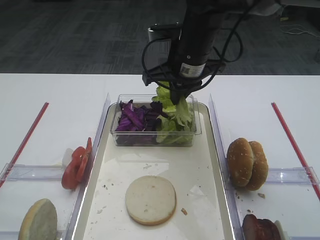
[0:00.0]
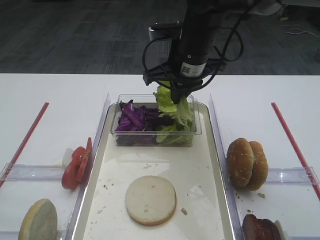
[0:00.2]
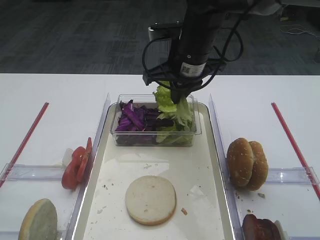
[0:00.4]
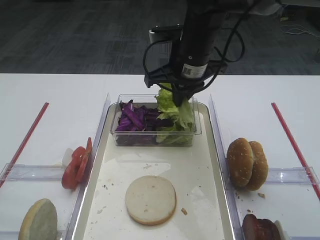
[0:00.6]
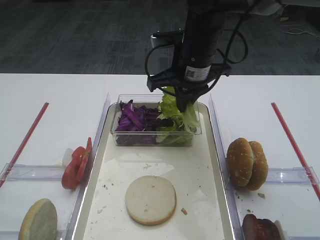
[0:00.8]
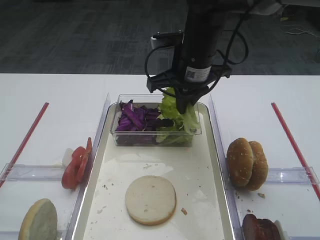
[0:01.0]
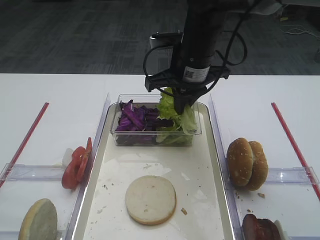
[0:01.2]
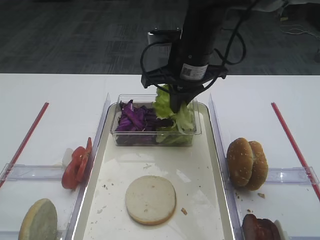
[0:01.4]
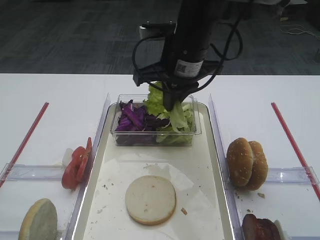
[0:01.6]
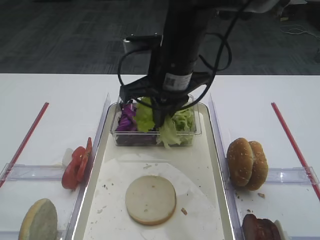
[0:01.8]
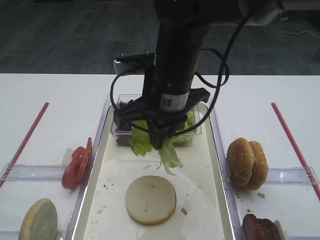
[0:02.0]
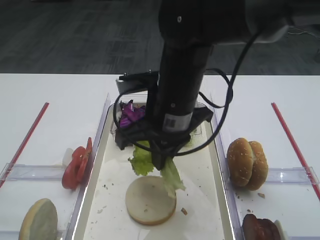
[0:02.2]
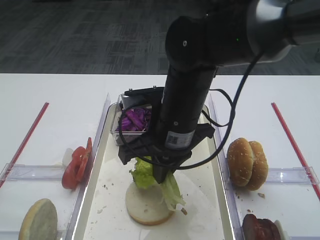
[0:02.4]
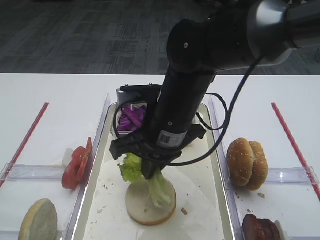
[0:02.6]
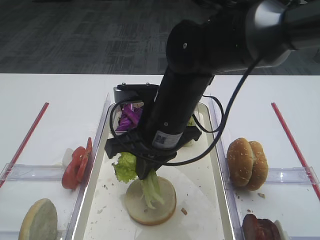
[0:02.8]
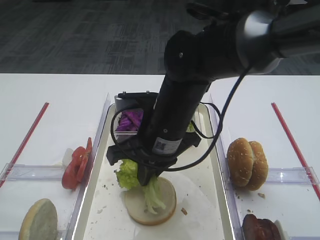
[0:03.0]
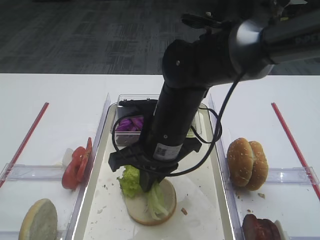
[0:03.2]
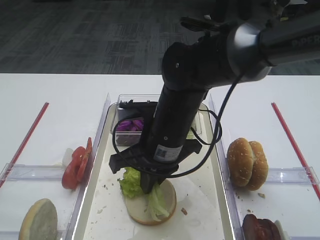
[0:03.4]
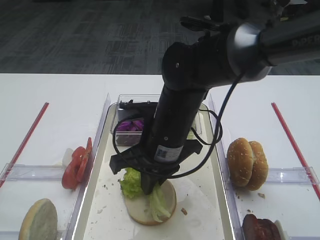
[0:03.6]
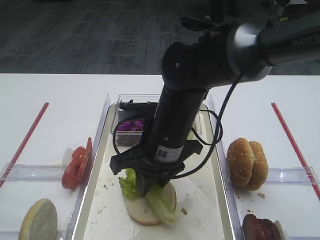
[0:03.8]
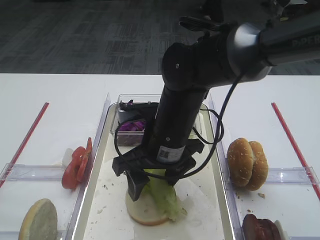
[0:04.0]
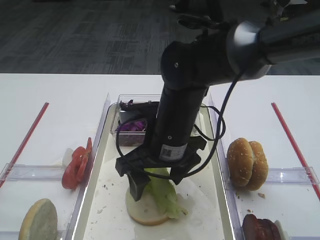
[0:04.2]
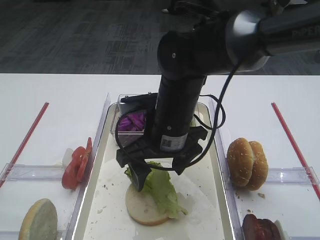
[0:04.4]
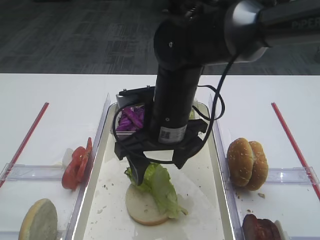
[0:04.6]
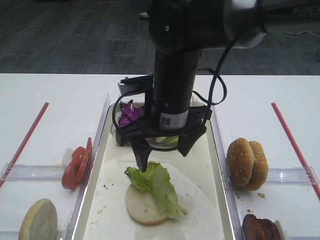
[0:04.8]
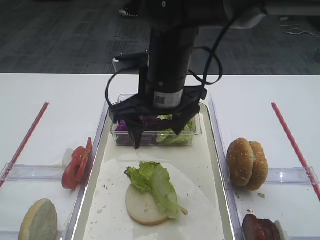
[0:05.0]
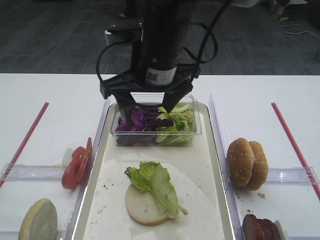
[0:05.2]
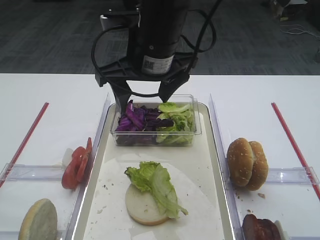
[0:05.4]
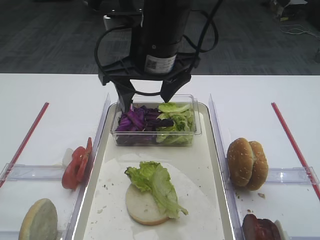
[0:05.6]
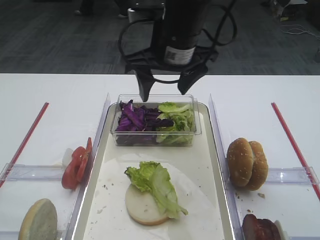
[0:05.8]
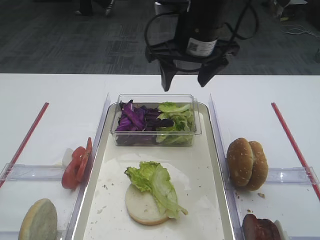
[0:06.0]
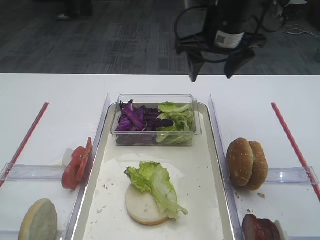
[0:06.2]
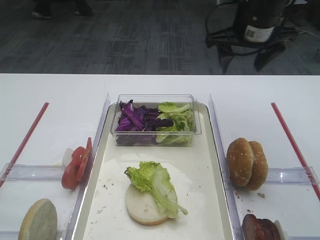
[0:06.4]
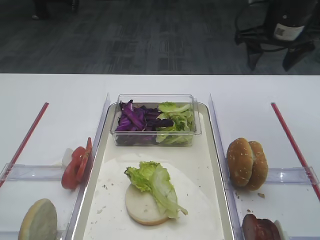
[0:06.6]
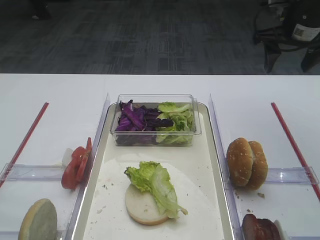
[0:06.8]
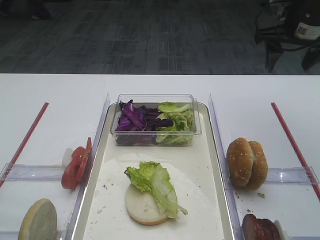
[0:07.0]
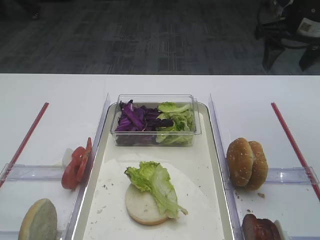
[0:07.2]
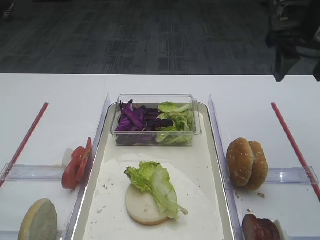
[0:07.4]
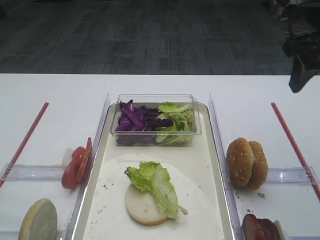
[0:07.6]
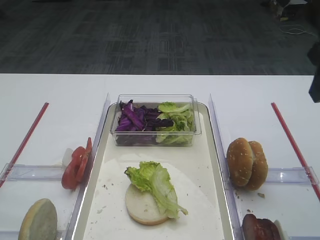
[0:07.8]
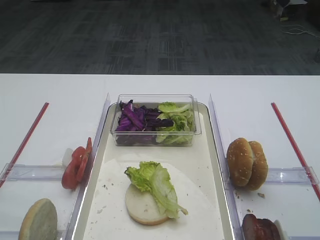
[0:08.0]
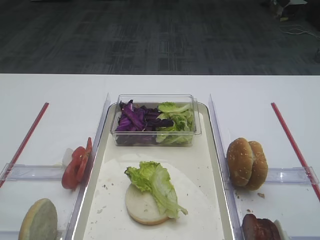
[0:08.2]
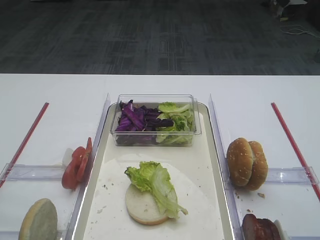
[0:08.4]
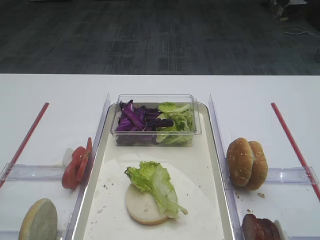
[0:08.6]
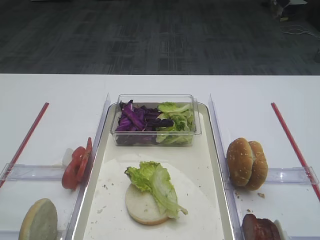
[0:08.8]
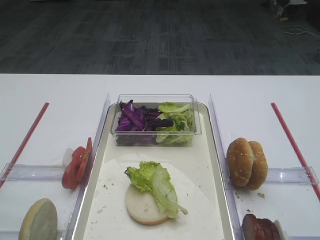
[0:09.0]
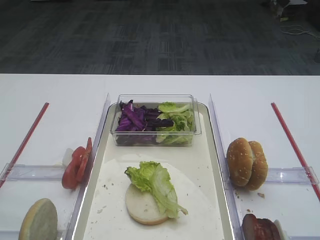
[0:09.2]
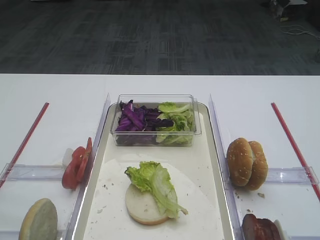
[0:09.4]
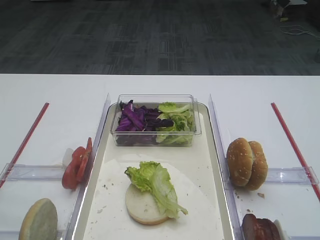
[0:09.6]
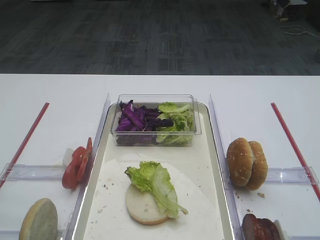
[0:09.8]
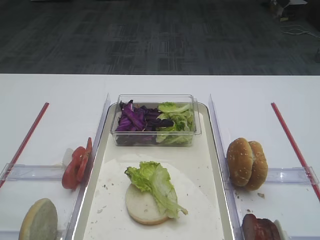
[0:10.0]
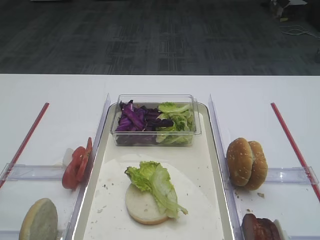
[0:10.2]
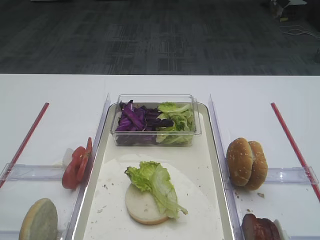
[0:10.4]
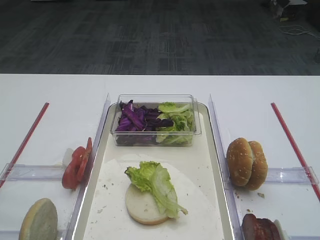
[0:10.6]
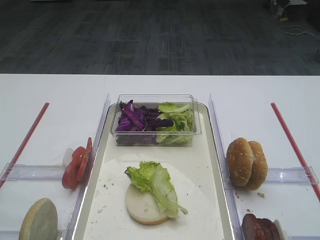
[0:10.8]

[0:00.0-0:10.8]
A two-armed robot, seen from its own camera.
Step, 0:01.6 to 0:05.4: Place the lettuce leaf on the bread slice with the right gripper.
0:00.0 to 0:01.6: The grippers stay close to where they were, moving slightly.
0:01.6 to 0:03.0: The right gripper heads backward and downward, covering about 10 cm.
0:03.0 to 0:04.6: The right gripper opens its fingers.
0:04.6 to 0:06.2: The right gripper goes about 15 cm forward, upward and to the right.
0:06.2 to 0:07.8: The right gripper is displaced to the right and backward by some 20 cm.
0:07.8 to 0:09.2: The right gripper shifts approximately 25 cm backward.

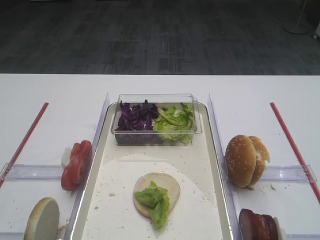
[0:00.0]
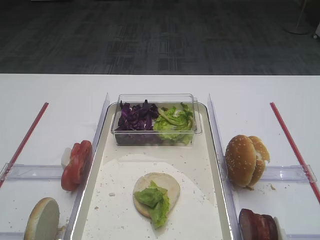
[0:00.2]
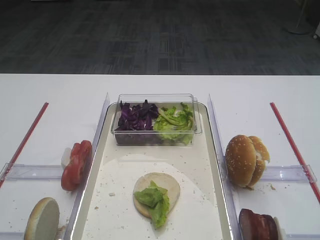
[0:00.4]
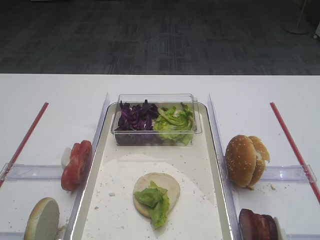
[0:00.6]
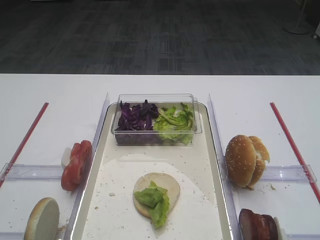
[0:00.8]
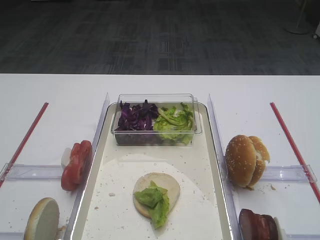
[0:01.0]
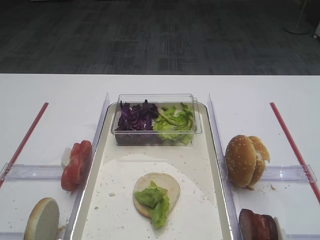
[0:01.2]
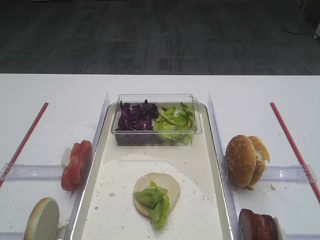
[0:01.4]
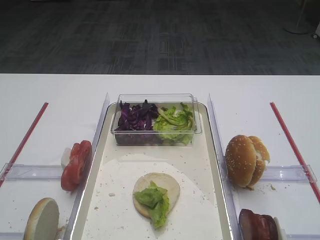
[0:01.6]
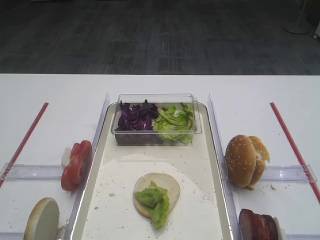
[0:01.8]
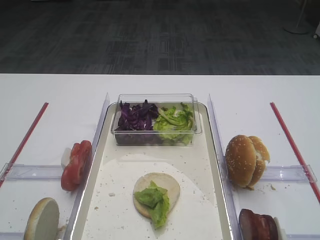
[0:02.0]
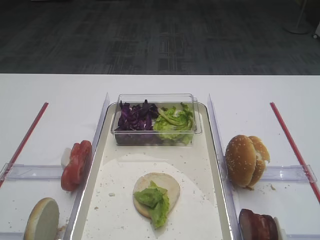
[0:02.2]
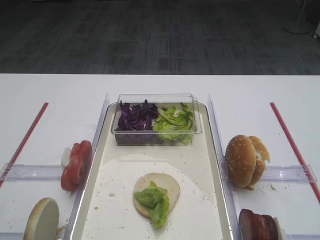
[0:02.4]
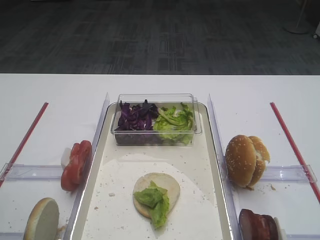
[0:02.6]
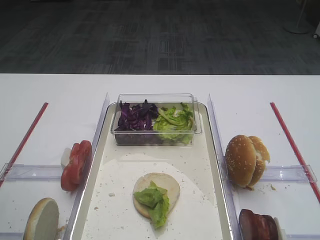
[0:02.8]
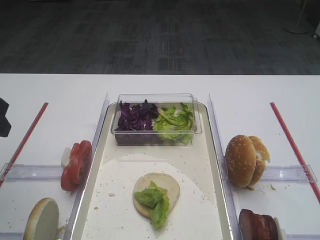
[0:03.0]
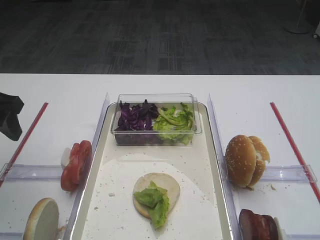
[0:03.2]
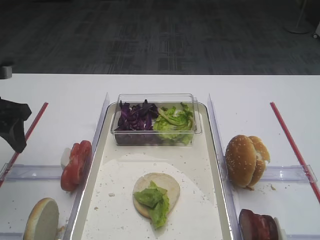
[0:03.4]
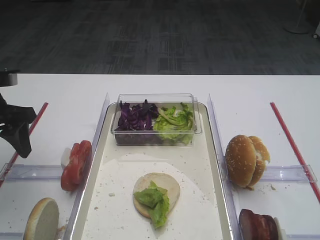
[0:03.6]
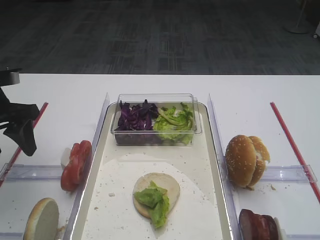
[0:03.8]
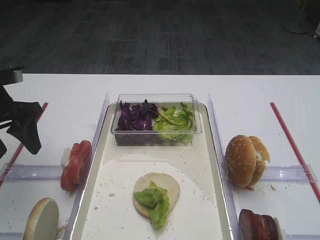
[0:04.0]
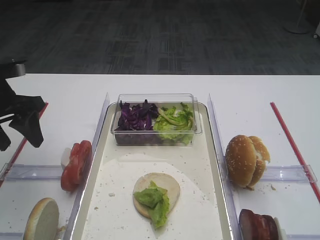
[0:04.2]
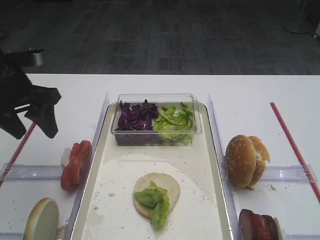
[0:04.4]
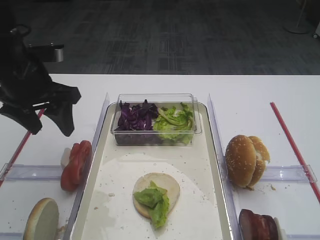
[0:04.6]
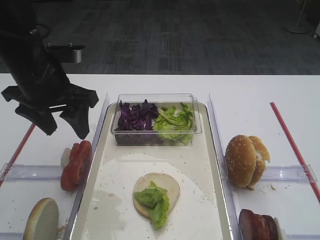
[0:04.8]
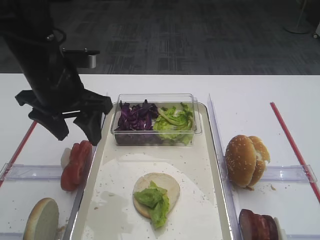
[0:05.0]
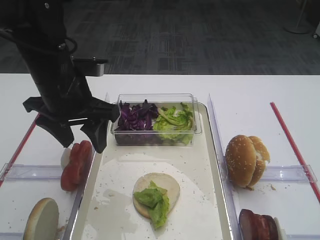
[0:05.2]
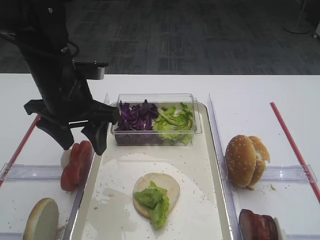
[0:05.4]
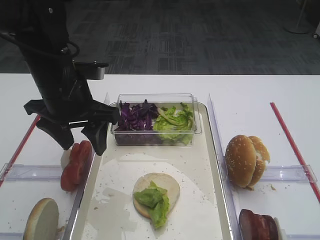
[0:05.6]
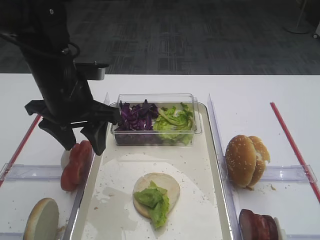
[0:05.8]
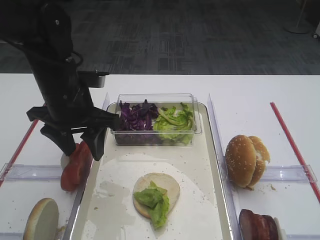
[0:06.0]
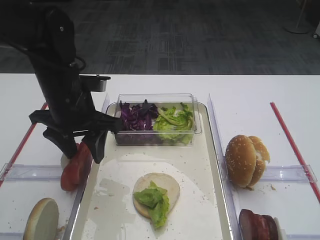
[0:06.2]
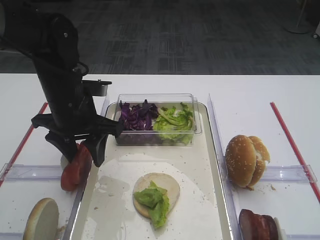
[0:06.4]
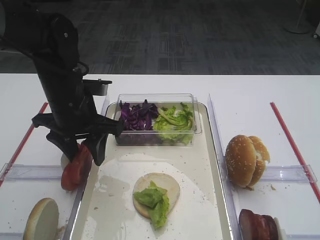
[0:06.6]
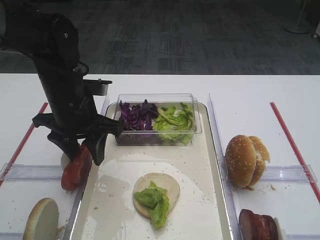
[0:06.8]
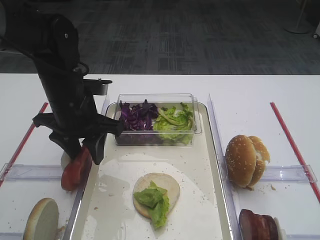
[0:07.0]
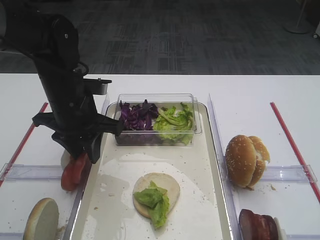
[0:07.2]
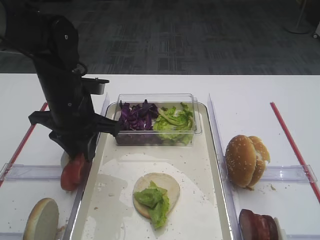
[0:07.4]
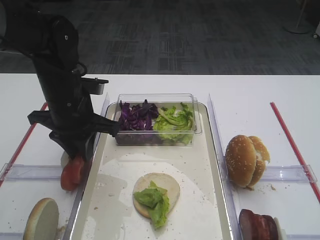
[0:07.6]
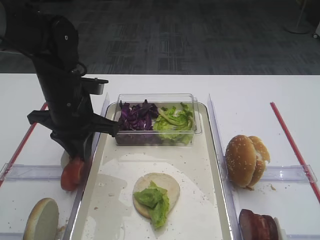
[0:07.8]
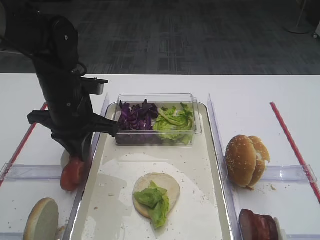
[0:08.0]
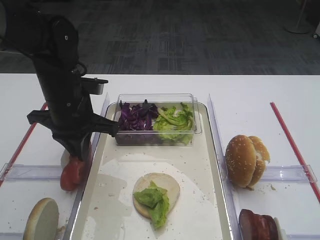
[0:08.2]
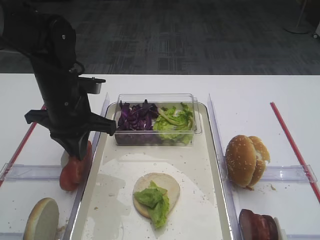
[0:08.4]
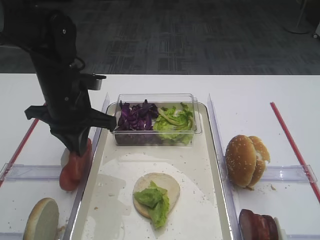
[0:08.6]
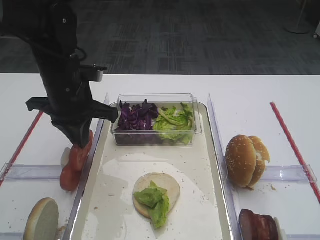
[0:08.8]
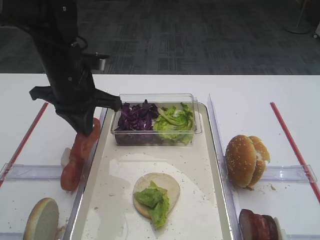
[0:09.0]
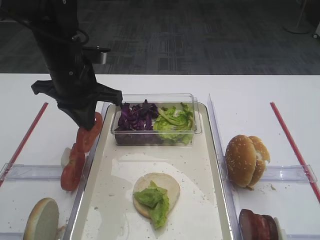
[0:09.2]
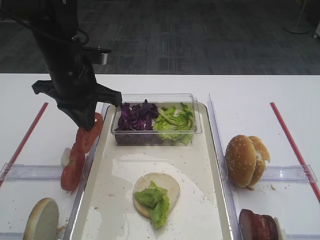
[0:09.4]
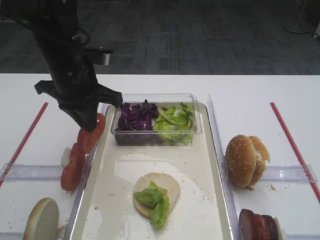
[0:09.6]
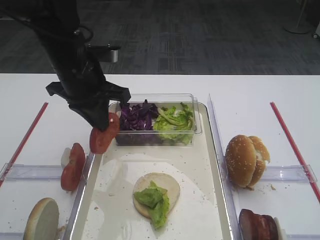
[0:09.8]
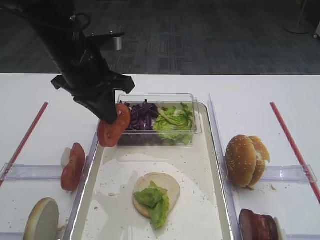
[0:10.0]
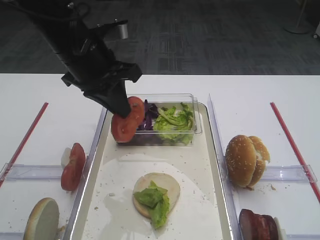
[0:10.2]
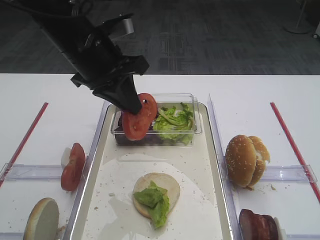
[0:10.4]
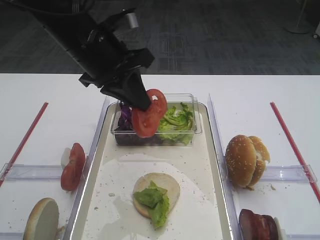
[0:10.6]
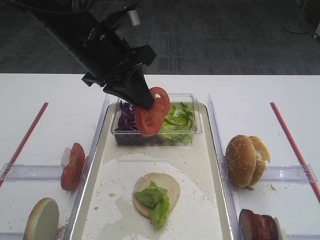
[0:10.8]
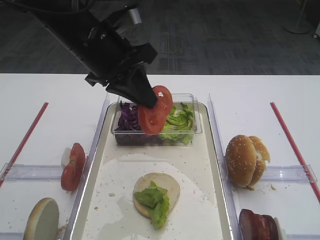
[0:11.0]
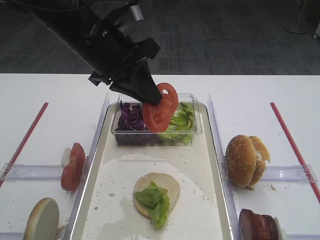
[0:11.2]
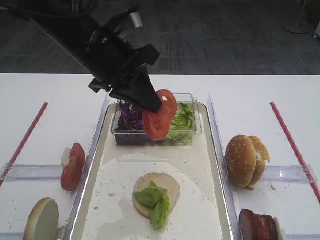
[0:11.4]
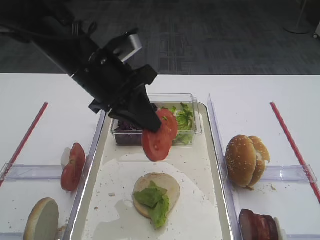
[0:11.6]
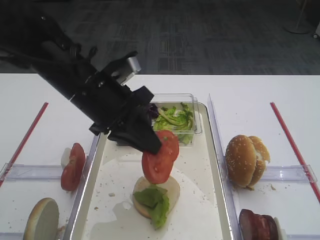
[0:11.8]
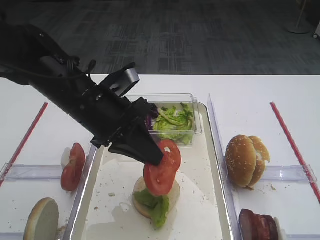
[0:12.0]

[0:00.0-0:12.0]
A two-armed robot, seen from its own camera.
Step, 0:00.0 to 0:09.0: Pick up the tomato slice with the left gripper.
0:01.6 to 0:03.0: The left gripper shifts some 25 cm forward.
0:03.0 to 0:04.4: The left gripper is displaced forward by roughly 10 cm.
0:04.4 to 0:06.0: The left gripper is displaced to the right by roughly 10 cm.
0:06.0 to 0:07.6: The left gripper closes up.
0:07.6 to 0:09.0: The left gripper closes.
0:09.0 to 0:10.4: The left gripper shifts roughly 5 cm upward.
0:10.4 to 0:12.0: The left gripper travels downward by approximately 5 cm.
